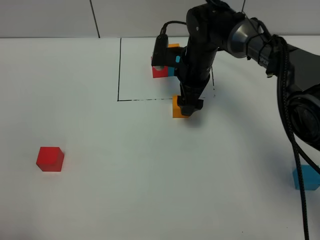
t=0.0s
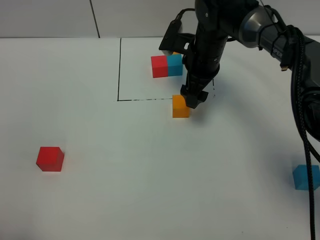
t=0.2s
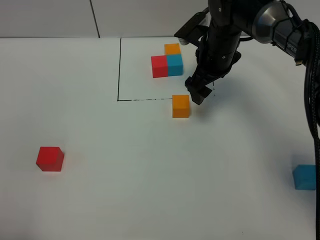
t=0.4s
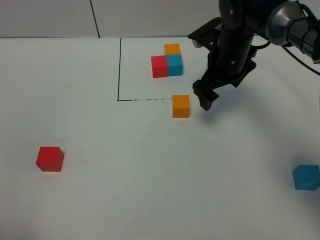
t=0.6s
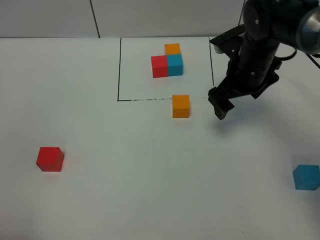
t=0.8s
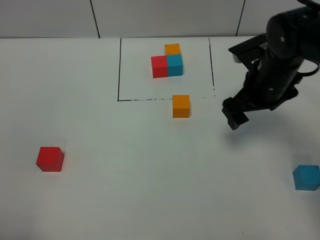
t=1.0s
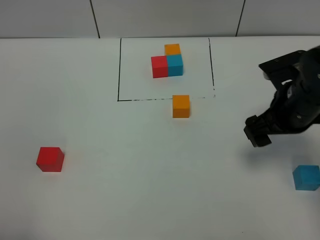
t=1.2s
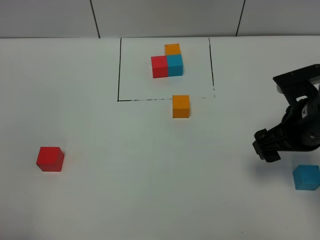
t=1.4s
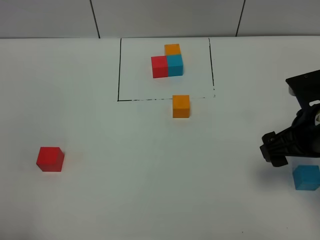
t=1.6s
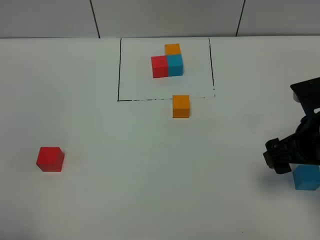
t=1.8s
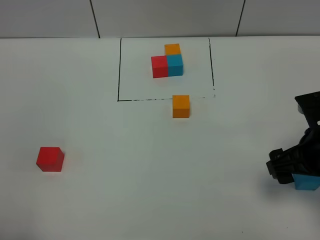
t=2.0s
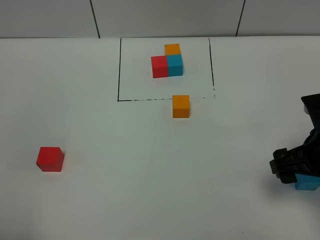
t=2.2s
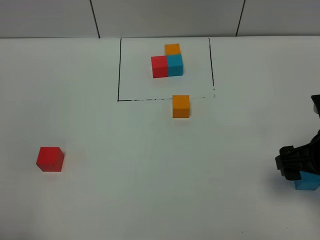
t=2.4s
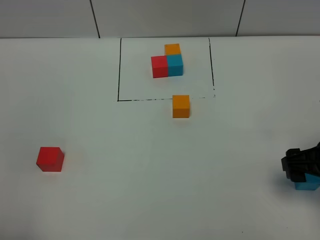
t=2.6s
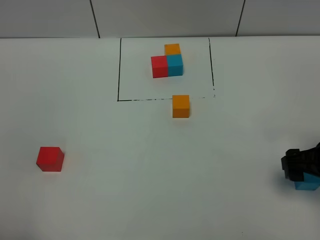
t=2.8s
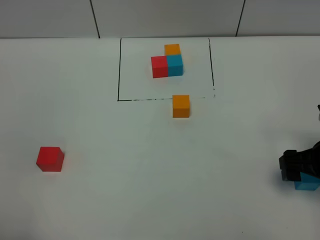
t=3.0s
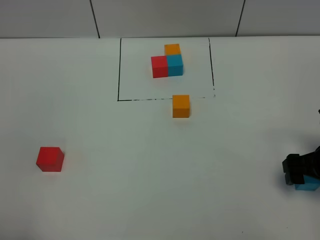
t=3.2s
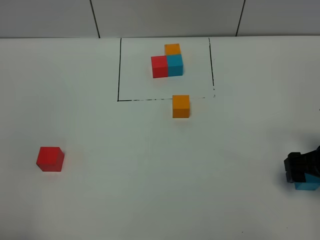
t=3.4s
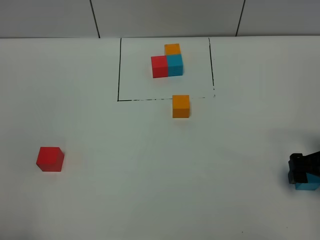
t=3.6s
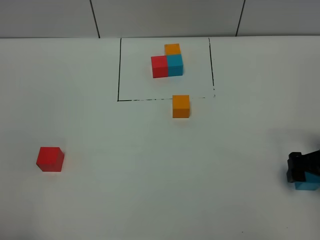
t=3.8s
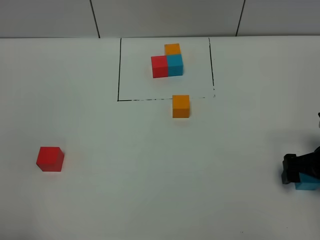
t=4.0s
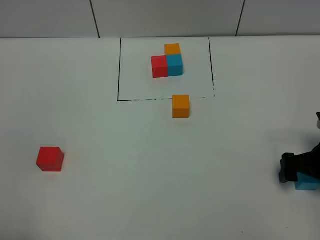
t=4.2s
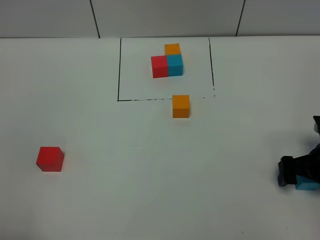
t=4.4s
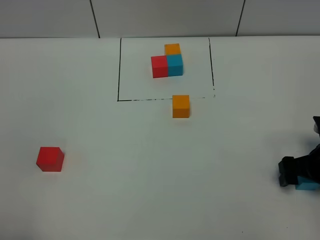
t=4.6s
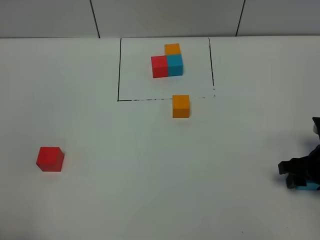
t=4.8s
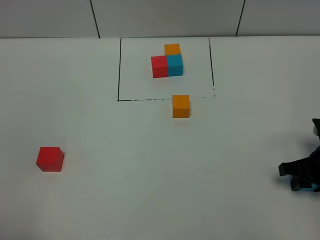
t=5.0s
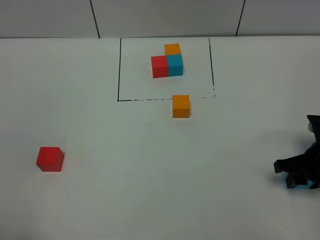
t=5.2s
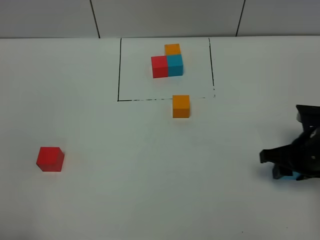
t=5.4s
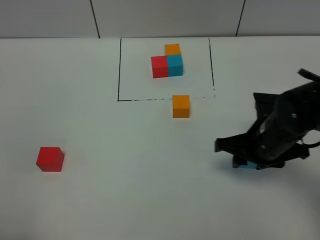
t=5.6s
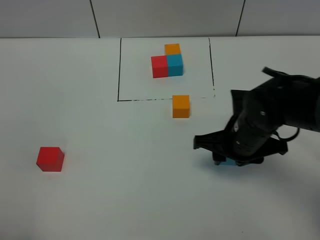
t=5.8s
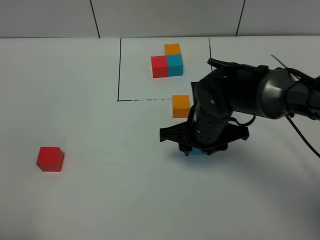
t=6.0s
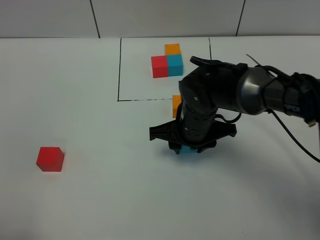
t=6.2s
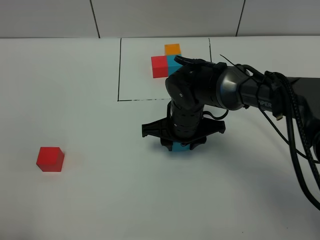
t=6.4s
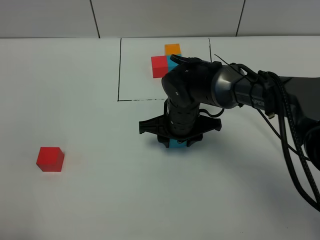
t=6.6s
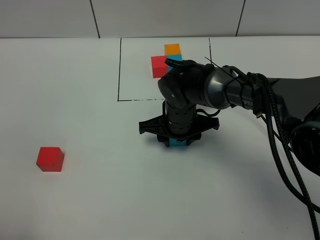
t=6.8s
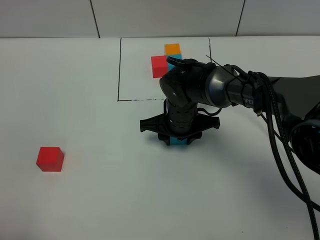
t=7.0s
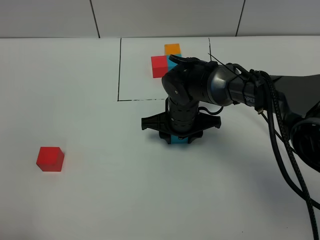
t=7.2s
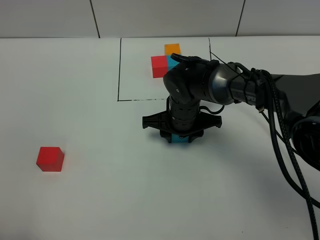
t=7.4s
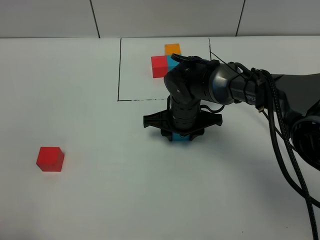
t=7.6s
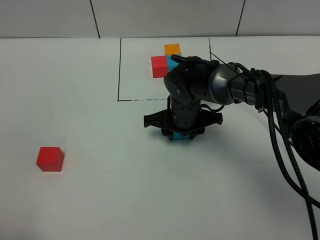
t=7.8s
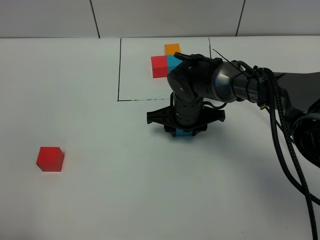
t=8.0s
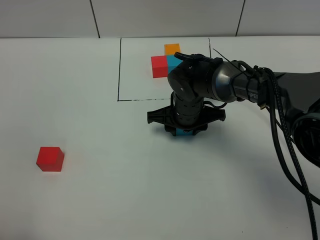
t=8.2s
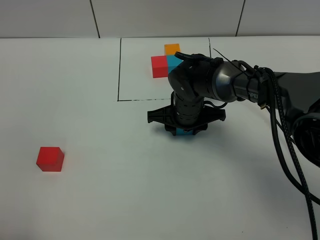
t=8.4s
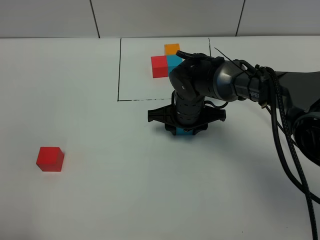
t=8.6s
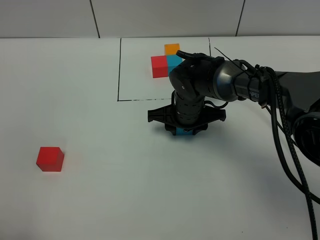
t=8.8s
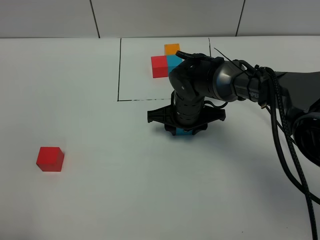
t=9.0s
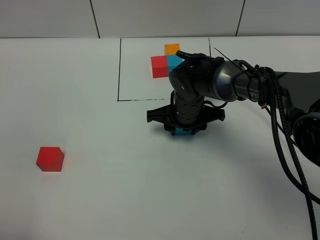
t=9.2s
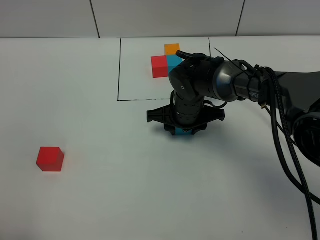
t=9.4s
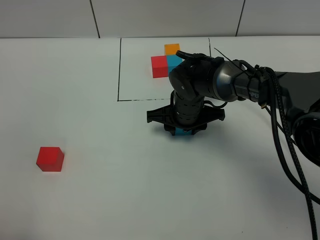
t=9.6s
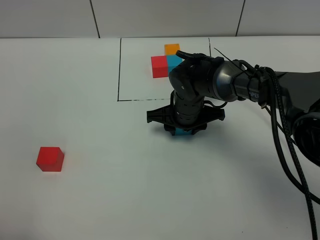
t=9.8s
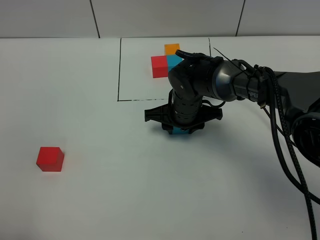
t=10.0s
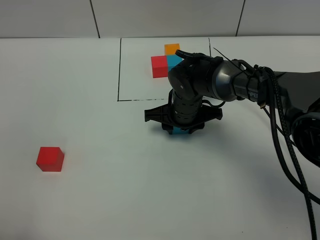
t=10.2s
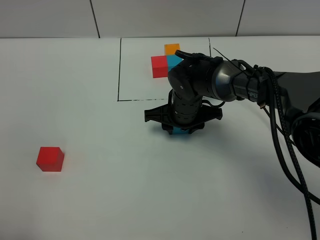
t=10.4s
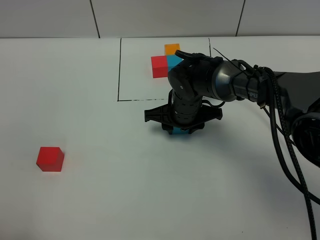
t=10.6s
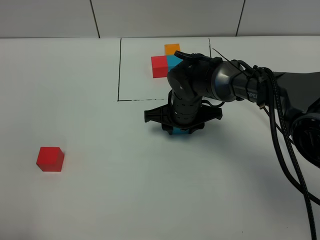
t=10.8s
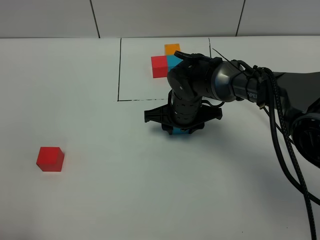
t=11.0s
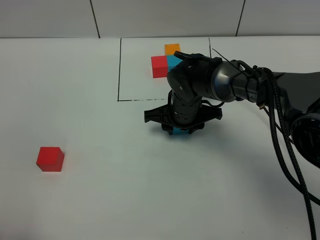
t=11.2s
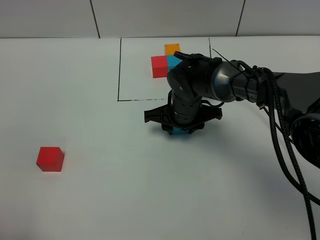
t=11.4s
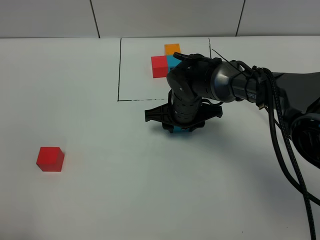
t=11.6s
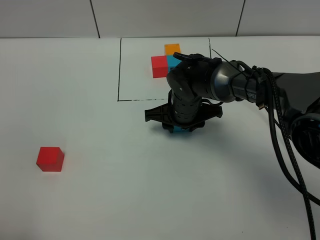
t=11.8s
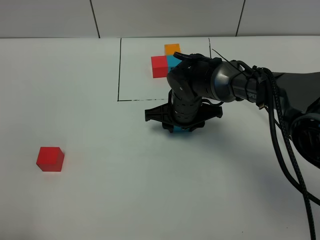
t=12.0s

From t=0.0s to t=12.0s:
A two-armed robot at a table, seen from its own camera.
Task of the whole recording: According to the building block template in front, assemble the scattered blocks together.
From t=0.0s to t=1.6s: The right gripper travels backward and to the right by about 25 cm.
From t=1.6s to t=3.0s: The right gripper goes approximately 5 cm downward.
From t=3.0s to t=4.4s: The right gripper shifts by about 5 cm.
From t=4.4s to t=6.0s: The right gripper travels to the left by some 25 cm, and closes.
From t=6.0s to t=7.6s: The right gripper travels forward by approximately 5 cm.
From t=7.6s to t=12.0s: Both grippers stay put.

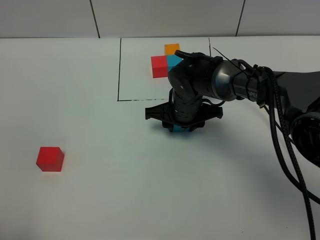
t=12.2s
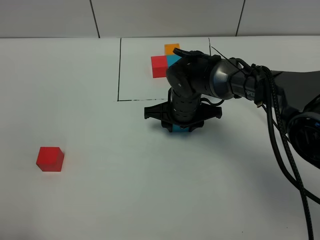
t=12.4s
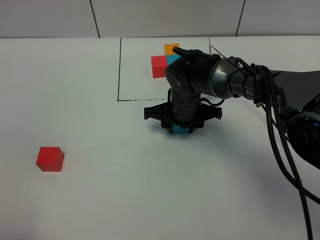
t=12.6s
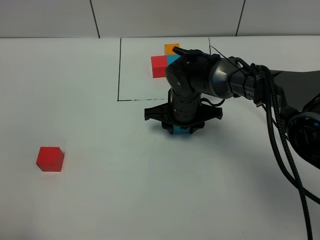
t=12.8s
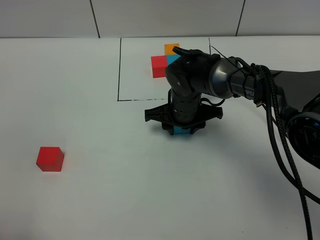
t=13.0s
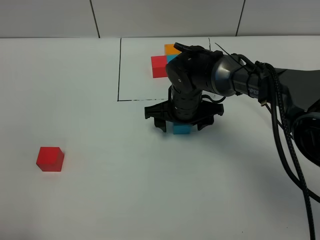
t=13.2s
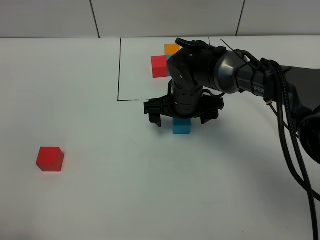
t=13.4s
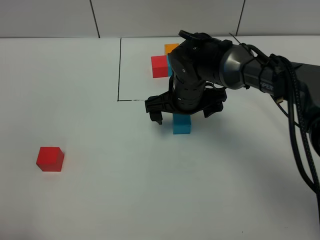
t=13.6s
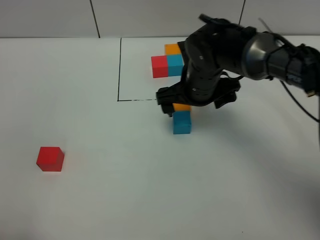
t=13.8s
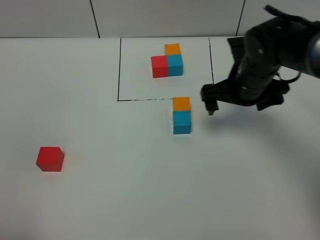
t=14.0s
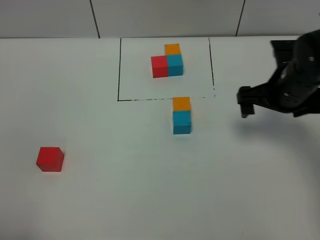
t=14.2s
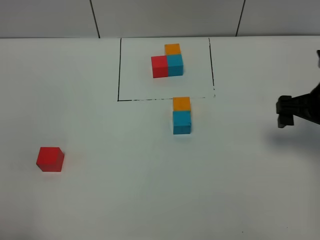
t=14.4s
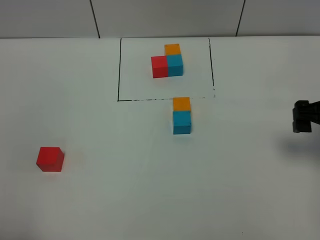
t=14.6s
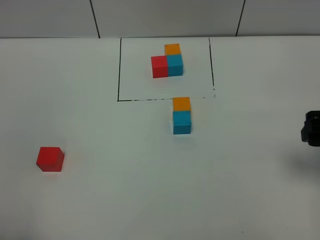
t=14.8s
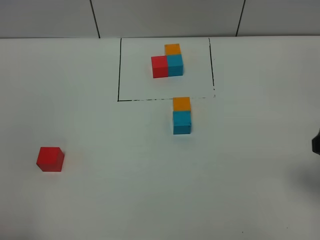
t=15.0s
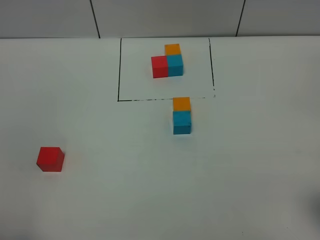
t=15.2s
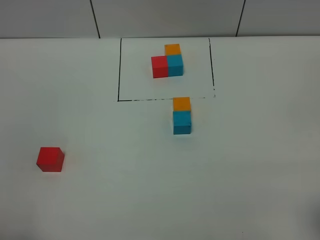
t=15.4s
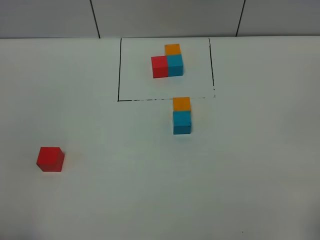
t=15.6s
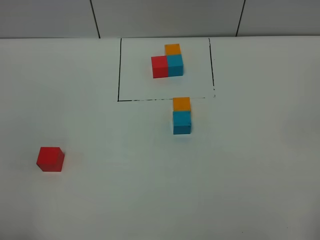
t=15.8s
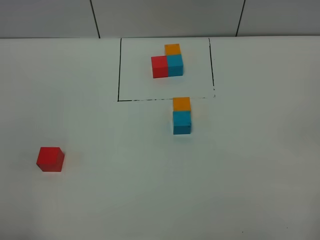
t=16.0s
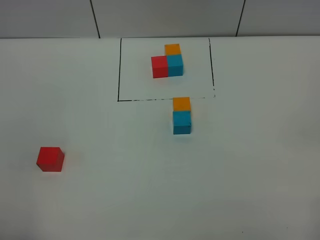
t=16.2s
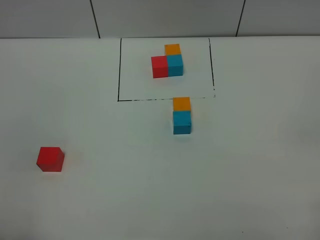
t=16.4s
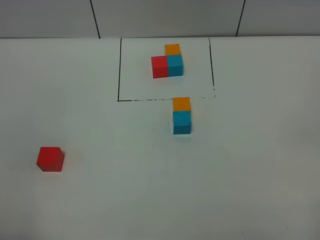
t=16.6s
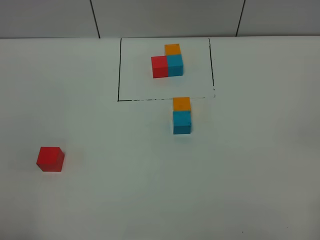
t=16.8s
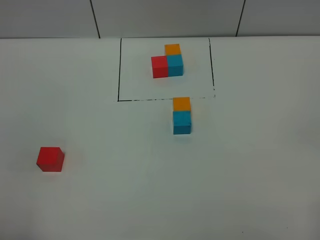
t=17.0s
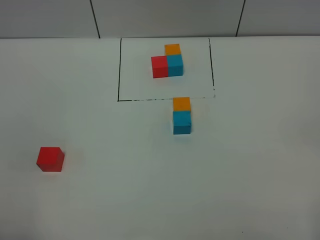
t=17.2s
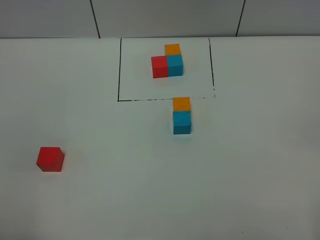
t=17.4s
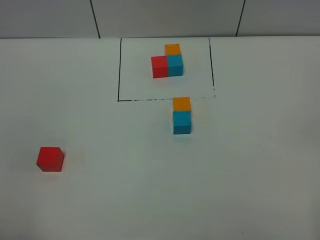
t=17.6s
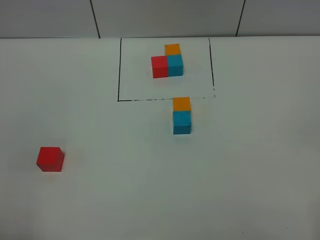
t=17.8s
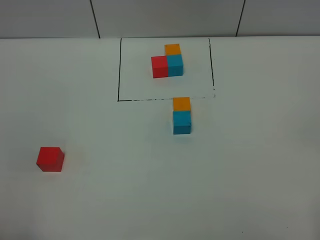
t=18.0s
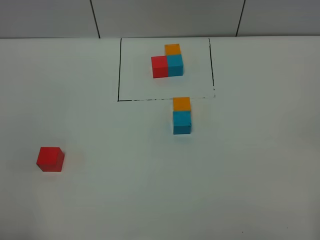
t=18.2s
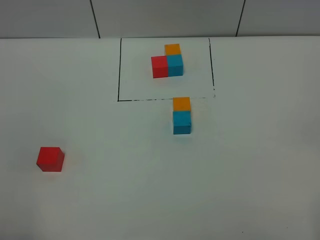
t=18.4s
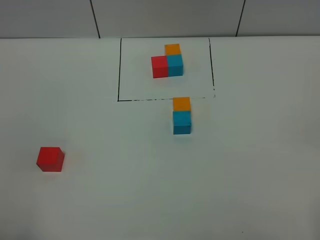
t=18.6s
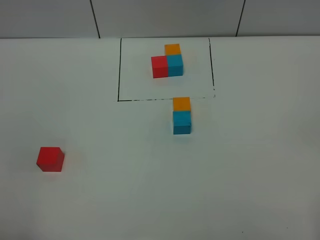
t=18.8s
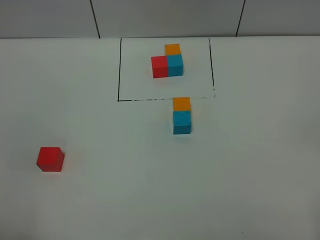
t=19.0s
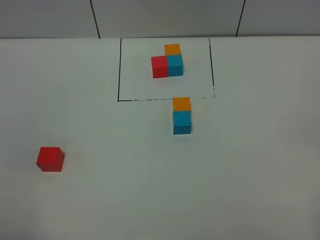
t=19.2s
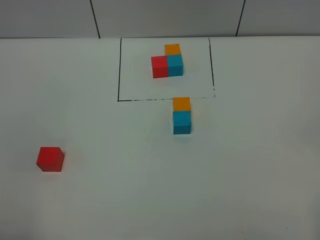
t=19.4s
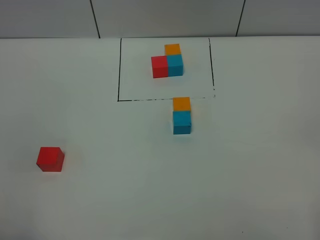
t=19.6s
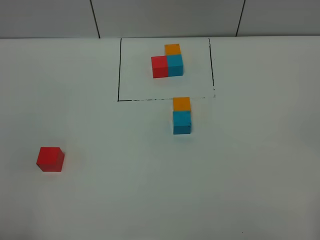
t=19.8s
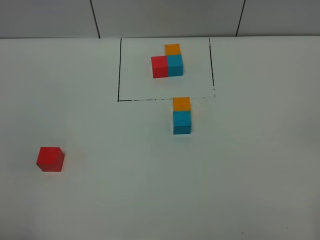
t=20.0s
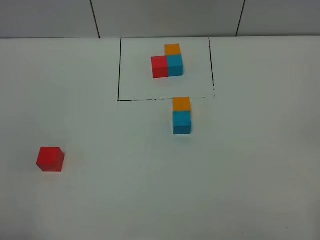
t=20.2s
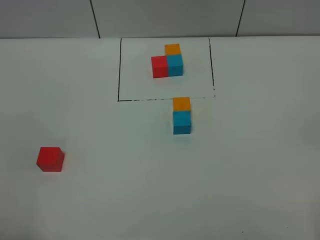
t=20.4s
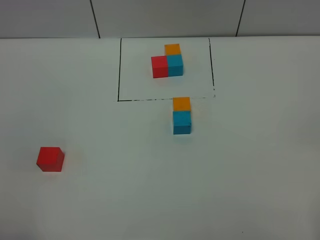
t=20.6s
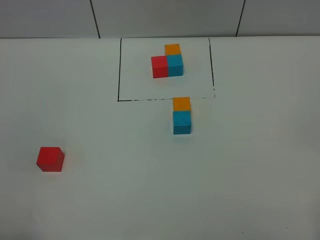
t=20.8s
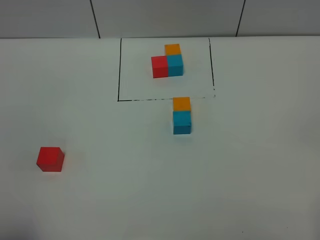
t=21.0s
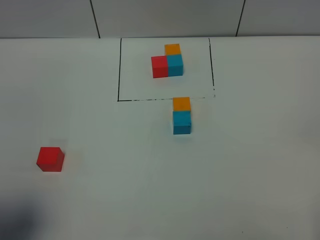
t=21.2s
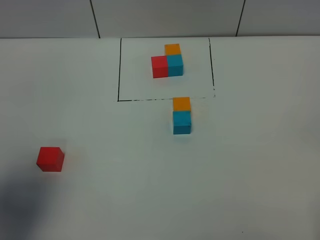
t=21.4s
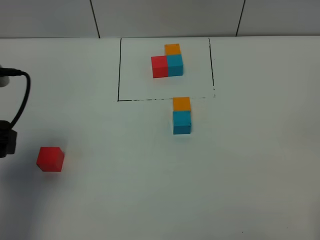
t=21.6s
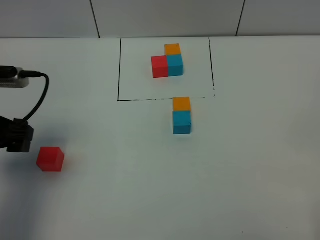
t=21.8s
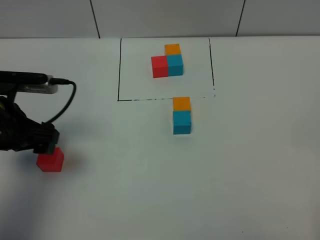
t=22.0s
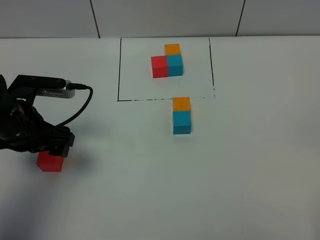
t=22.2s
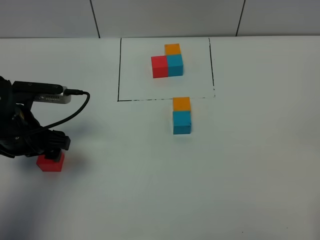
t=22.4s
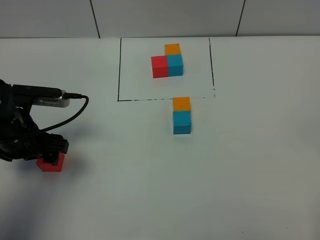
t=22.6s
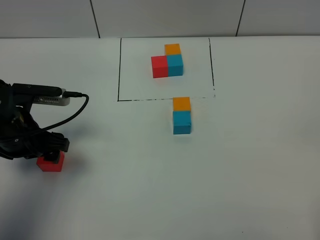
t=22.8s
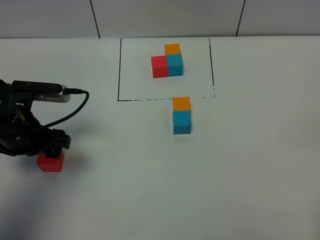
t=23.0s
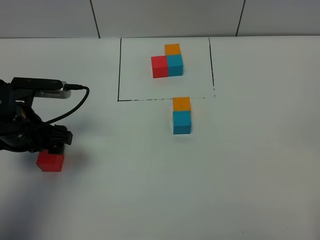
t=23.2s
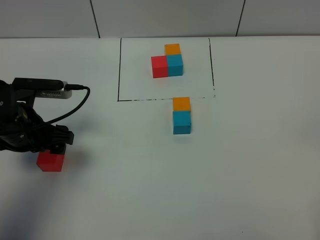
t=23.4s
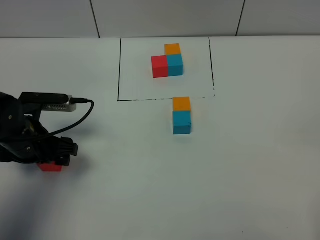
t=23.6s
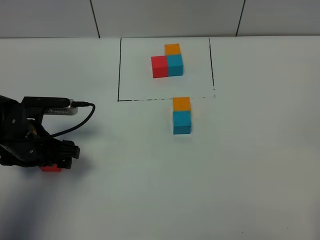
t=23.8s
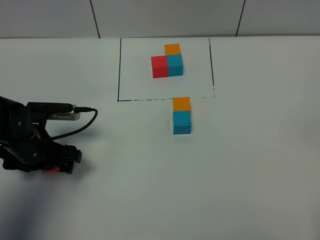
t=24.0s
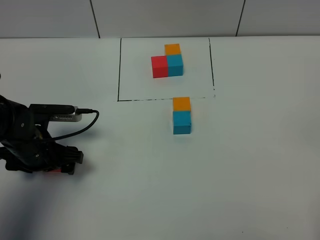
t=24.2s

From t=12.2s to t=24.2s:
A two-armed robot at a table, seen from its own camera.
Task of the whole recording: According to the building block template in front, assemble the scattered blocks together.
From t=12.2s to t=13.8s: The right gripper heads upward, covering approximately 10 cm, and opens its fingers.
From t=13.8s to t=15.2s: The right gripper goes roughly 35 cm backward and to the right.
From t=18.2s to t=19.8s: Both grippers stay about where they are.
From t=19.8s to t=21.2s: The left gripper is displaced forward by roughly 10 cm.
From t=21.2s to t=22.6s: The left gripper goes roughly 20 cm forward and downward.
From t=22.6s to t=24.2s: The left gripper travels downward by some 5 cm.
